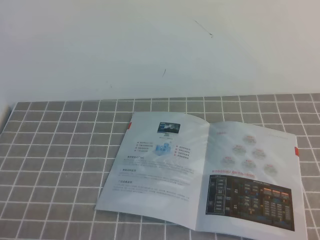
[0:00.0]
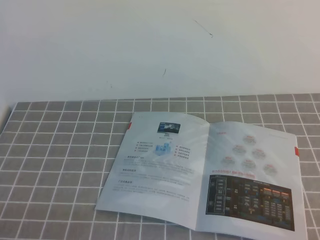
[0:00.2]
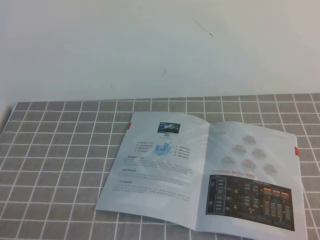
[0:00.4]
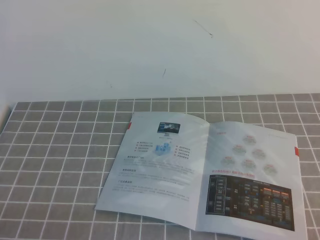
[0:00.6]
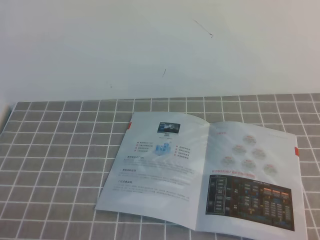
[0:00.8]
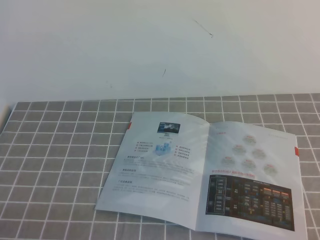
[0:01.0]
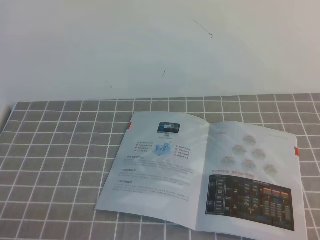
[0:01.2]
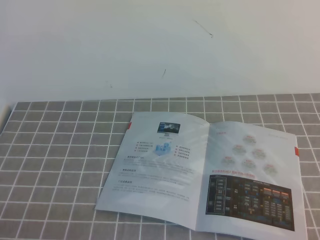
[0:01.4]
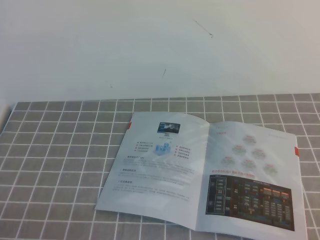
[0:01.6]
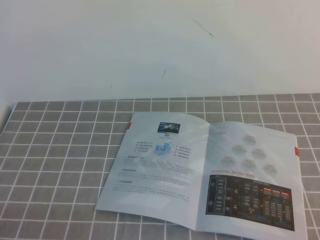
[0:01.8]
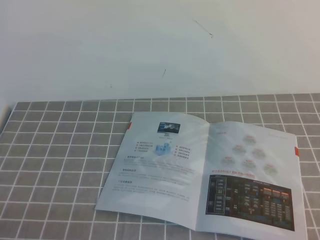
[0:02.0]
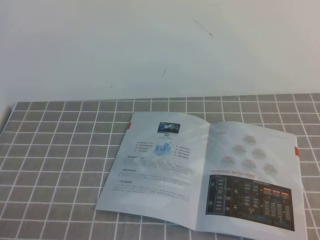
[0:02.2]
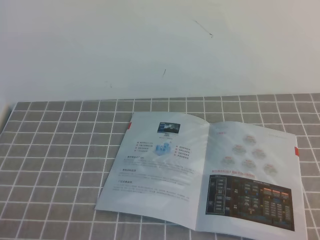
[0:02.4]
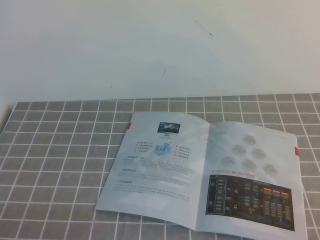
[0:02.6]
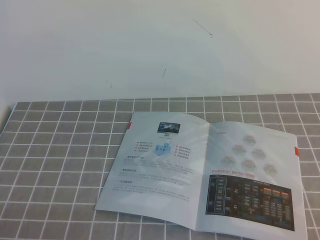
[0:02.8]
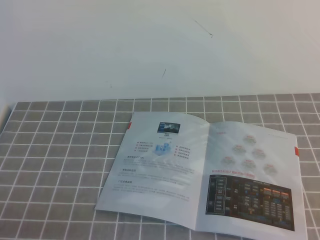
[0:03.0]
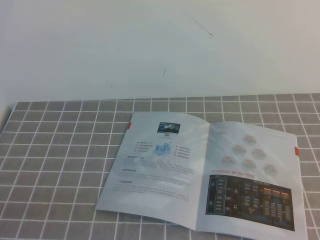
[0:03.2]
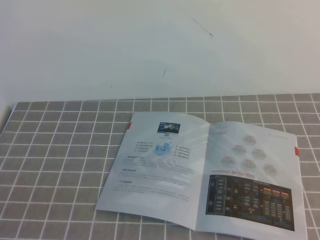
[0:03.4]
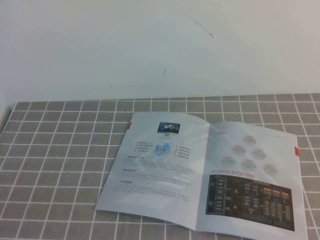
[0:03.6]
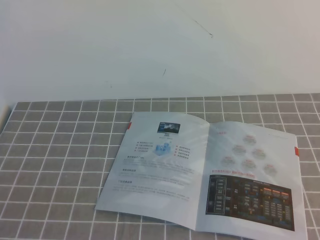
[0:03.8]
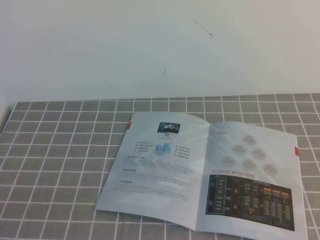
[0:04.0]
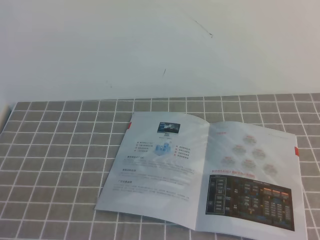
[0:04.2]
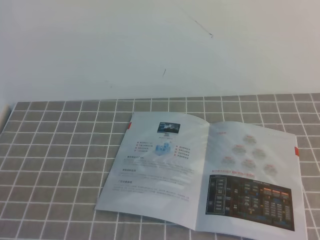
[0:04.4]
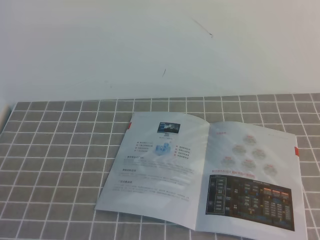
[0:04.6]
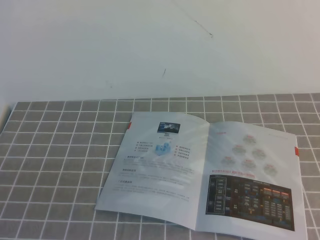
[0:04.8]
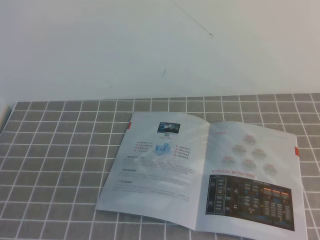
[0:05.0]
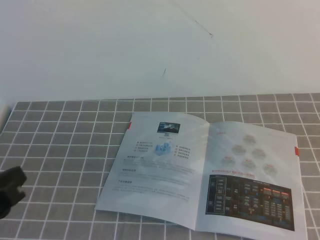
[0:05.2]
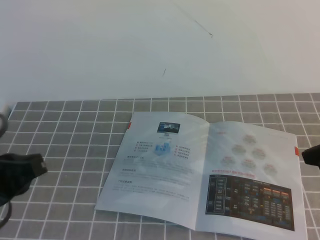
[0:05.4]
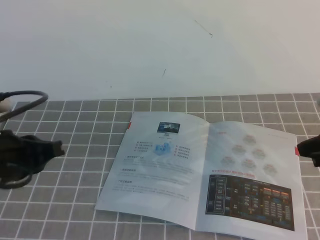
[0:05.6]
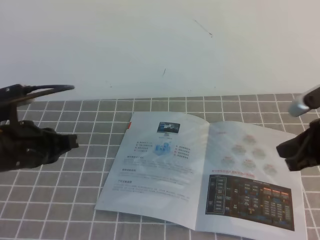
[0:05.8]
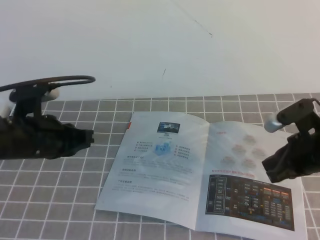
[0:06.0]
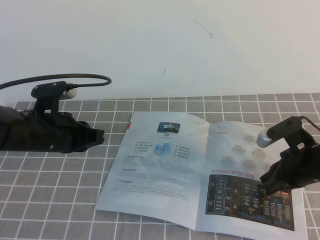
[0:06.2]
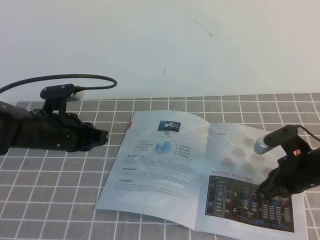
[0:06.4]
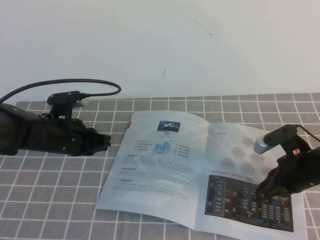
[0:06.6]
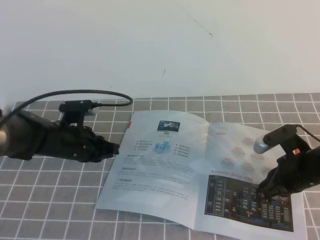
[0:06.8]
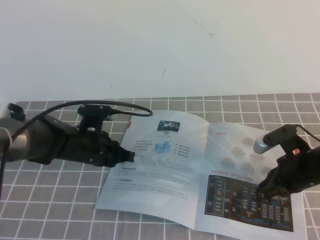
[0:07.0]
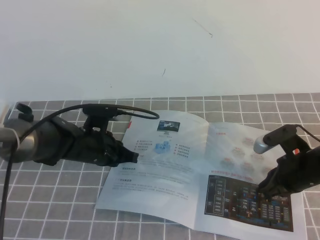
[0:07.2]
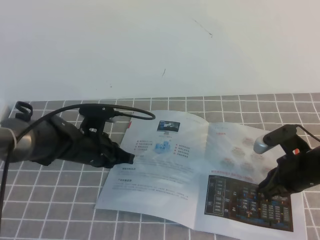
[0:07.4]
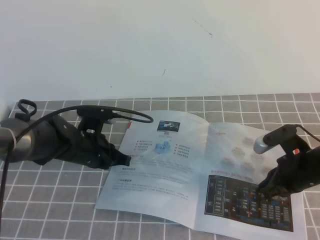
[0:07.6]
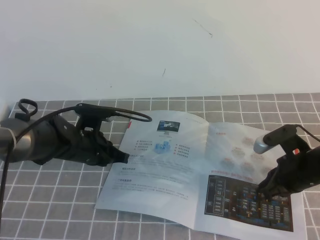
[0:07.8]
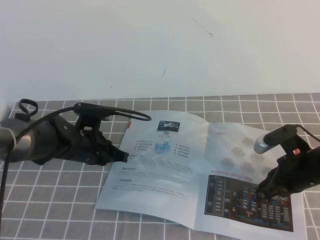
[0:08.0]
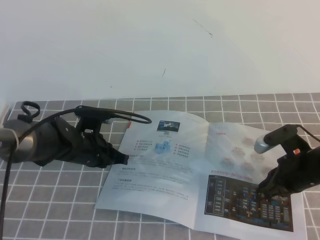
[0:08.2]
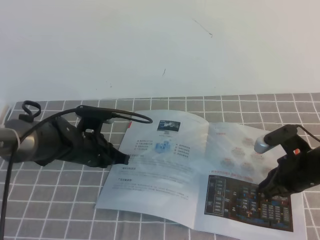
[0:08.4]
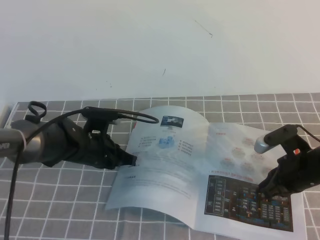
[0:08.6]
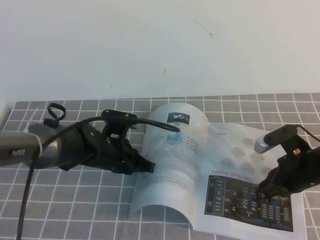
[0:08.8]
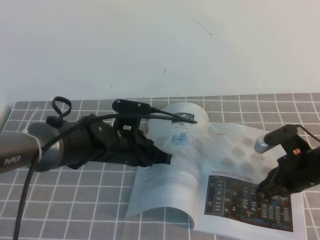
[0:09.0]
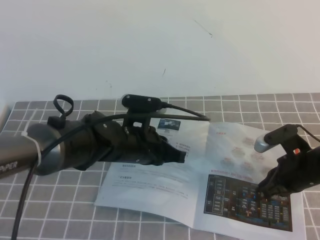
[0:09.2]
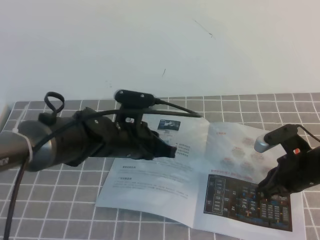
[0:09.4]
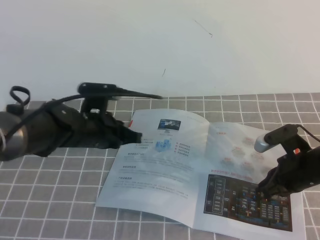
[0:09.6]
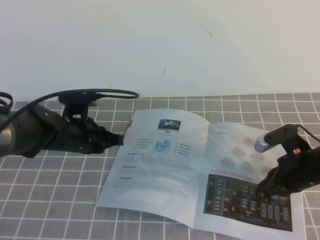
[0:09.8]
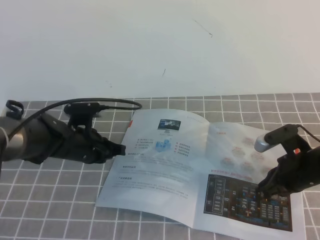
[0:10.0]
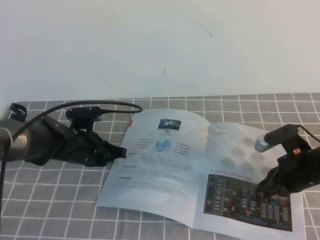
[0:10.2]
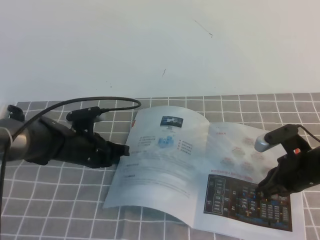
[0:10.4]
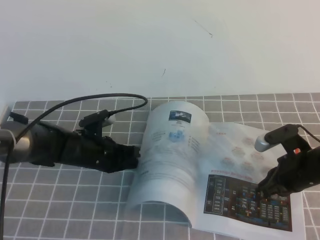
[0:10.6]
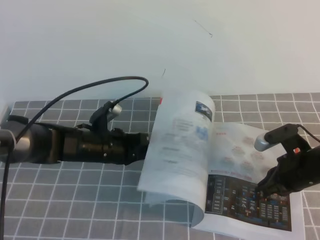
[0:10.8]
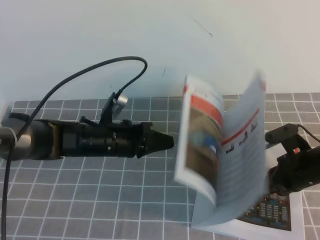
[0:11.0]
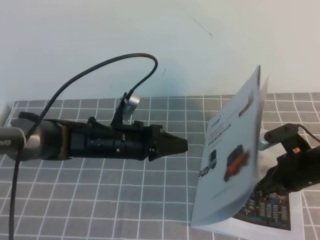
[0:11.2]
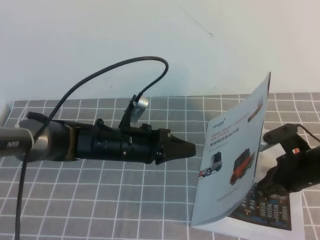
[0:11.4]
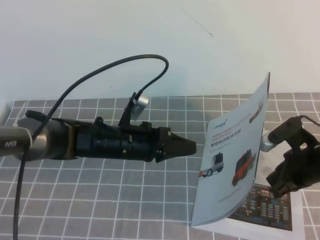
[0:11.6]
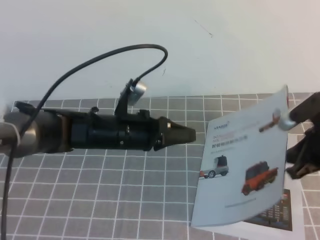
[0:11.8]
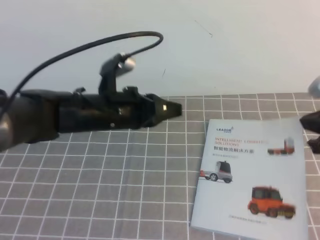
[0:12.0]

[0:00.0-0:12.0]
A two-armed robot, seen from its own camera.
Task of the whole recording: on the grey tablecloth, hold the book with one hand and close it with the other.
0:00.0 to 0:01.6: Both grippers stay about where they are.
0:04.4 to 0:06.0: The left gripper moves forward, roughly 25 cm. The right gripper goes roughly 35 cm forward and downward.
0:06.0 to 0:07.6: The right gripper is displaced downward by some 5 cm. Meanwhile the left gripper heads downward, forward and to the right, covering approximately 15 cm.
0:07.6 to 0:09.0: The left gripper shifts approximately 5 cm to the right.
0:09.0 to 0:10.4: The left gripper shifts some 5 cm to the left.
0:10.4 to 0:12.0: The right gripper shifts approximately 15 cm upward, while the left gripper shifts about 15 cm upward and to the right.

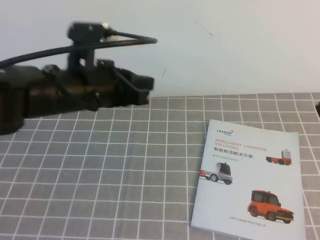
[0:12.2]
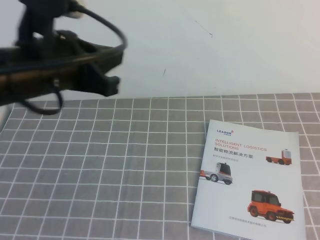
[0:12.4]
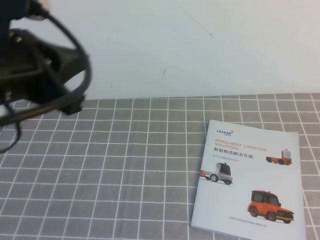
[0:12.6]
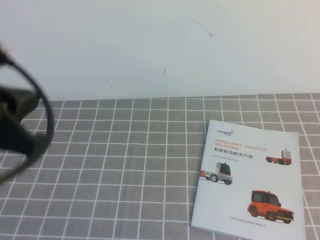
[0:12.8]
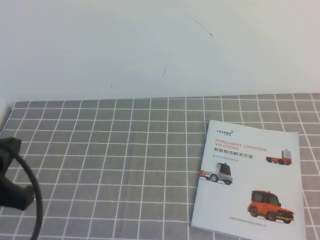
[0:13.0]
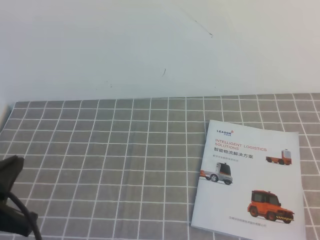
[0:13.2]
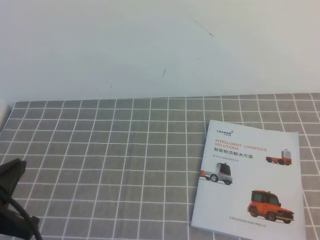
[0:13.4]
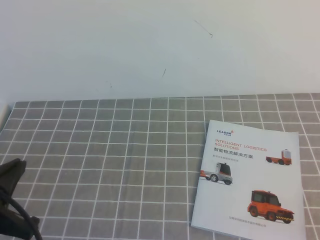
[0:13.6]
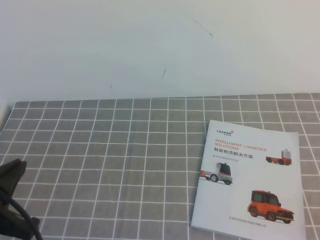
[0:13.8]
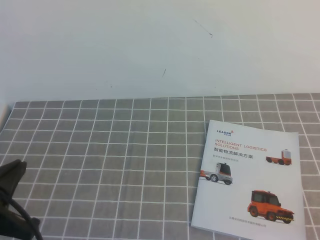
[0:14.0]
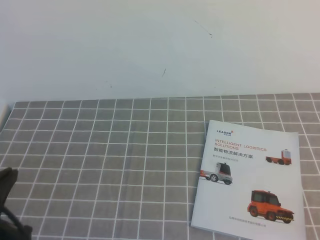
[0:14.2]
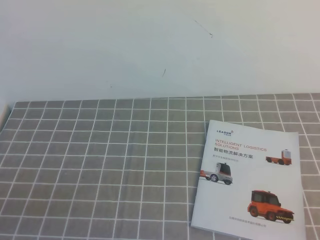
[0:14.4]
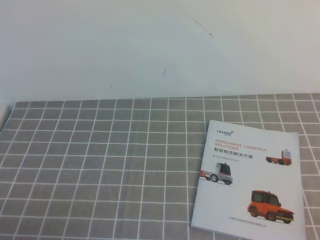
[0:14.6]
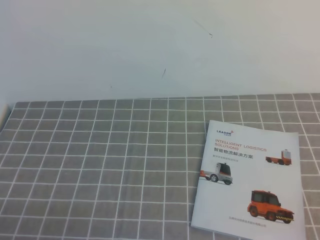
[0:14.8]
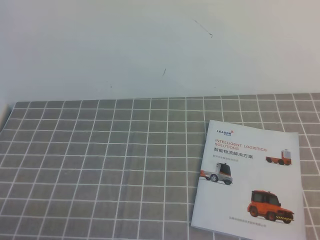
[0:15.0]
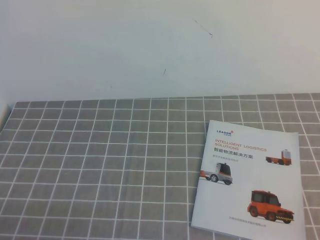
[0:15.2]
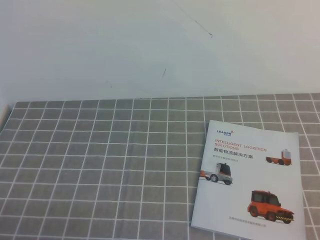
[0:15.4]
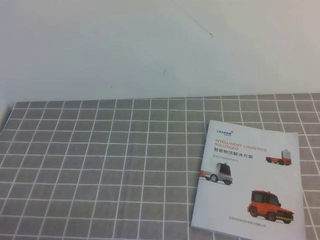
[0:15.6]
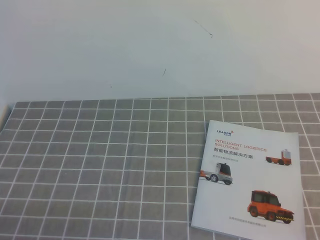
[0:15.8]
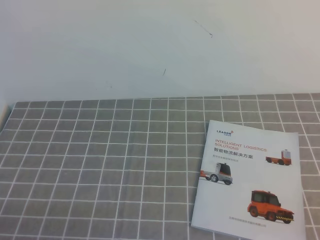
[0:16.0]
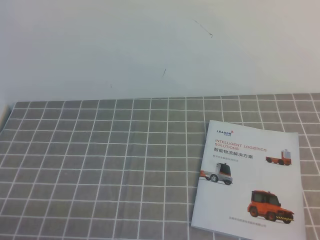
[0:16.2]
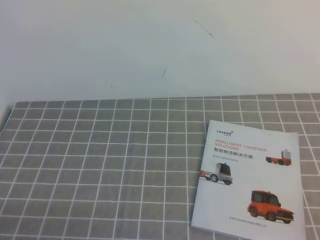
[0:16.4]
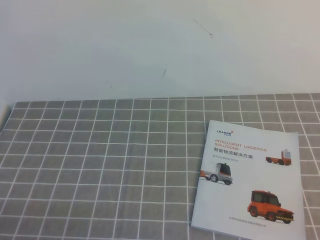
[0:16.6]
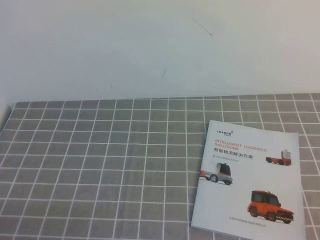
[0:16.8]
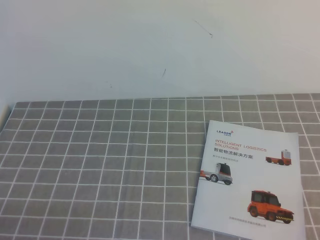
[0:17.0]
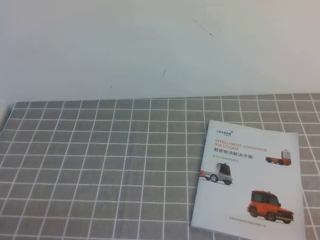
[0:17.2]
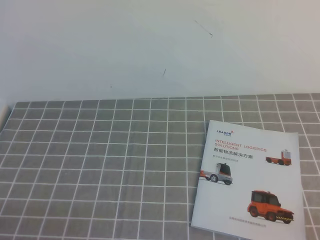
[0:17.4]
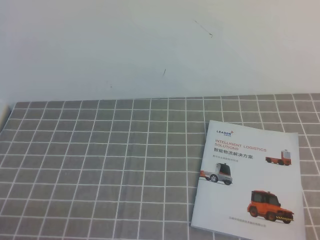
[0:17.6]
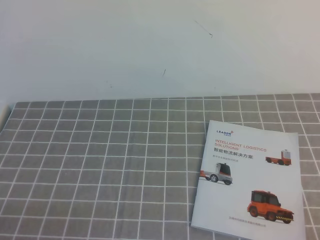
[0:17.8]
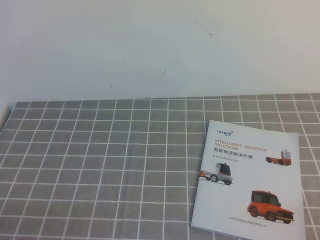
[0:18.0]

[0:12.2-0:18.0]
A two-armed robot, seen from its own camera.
Task of the whole recording: on the grey tablecloth, hold the book with one hand and close it with the other.
Step, 0:12.2 to 0:18.0: Close the open book.
0:12.2 to 0:13.6: The left gripper is displaced backward and to the left by about 20 cm. The right gripper moves backward and downward, roughly 15 cm.
0:13.6 to 0:15.0: The left gripper travels downward and backward by some 15 cm.
